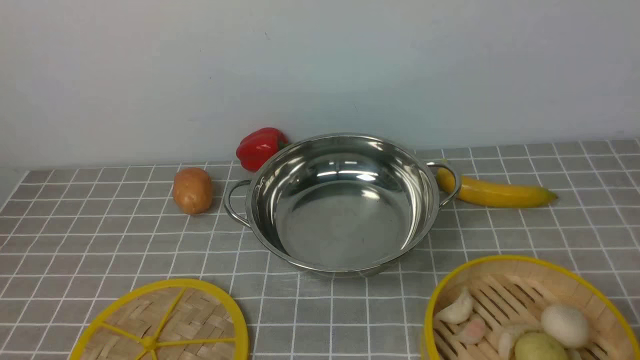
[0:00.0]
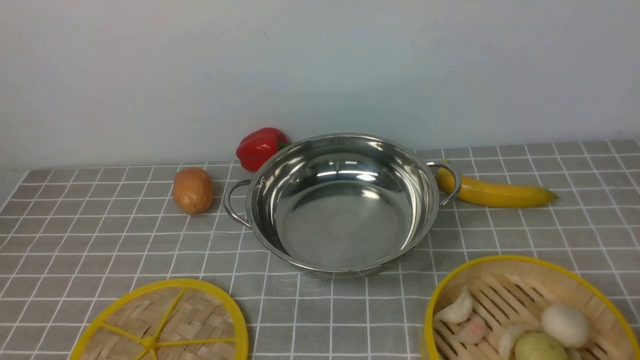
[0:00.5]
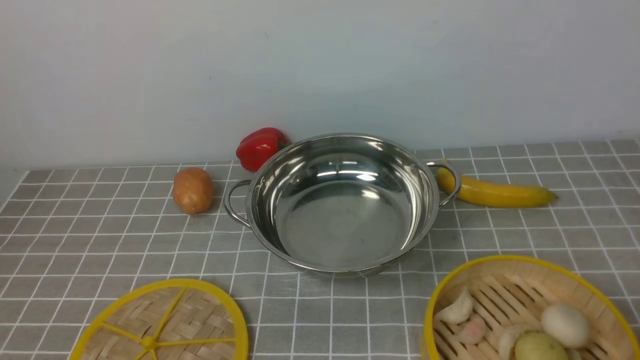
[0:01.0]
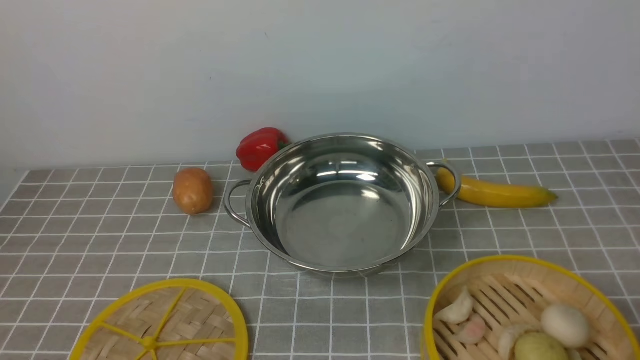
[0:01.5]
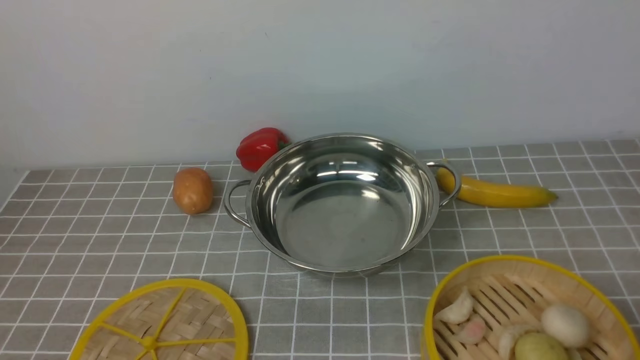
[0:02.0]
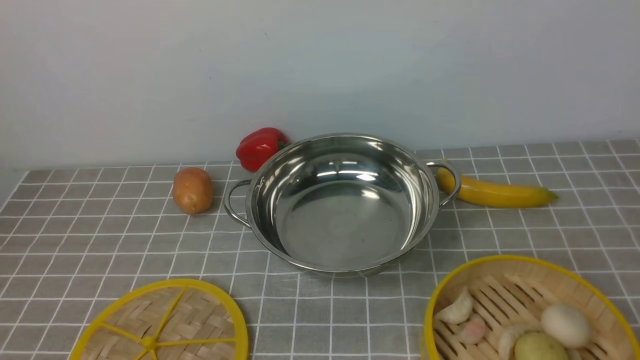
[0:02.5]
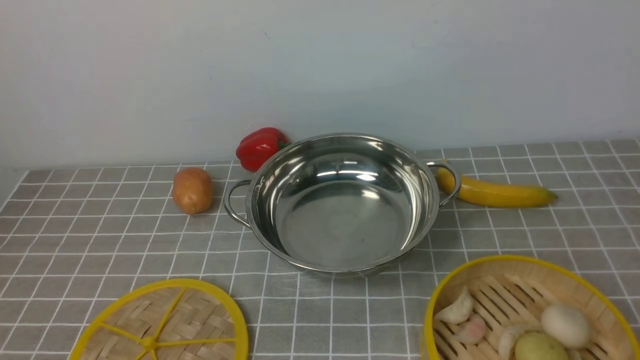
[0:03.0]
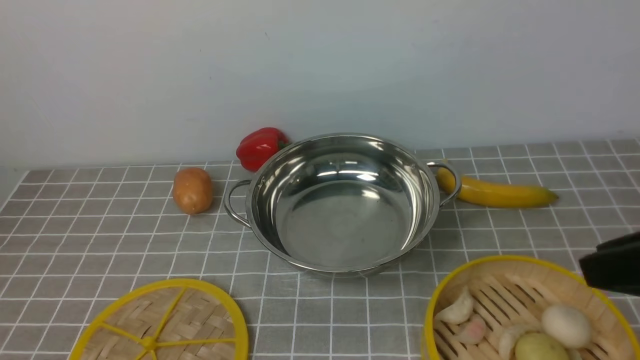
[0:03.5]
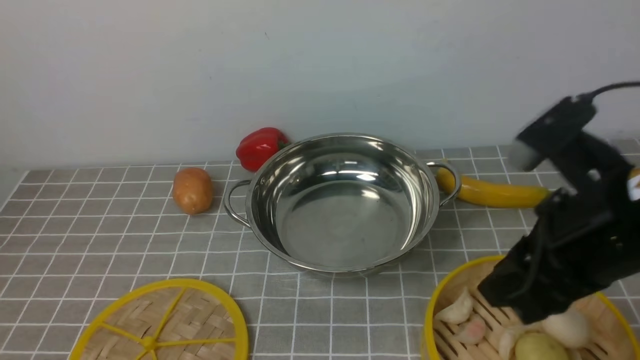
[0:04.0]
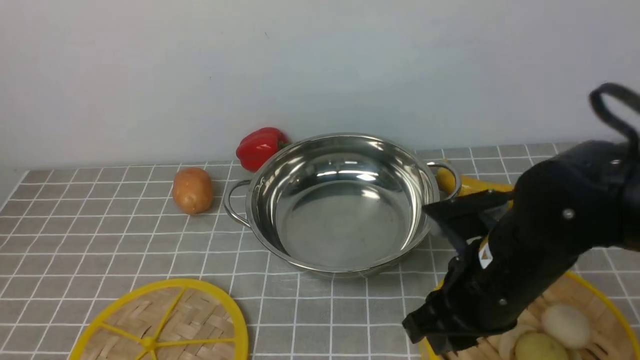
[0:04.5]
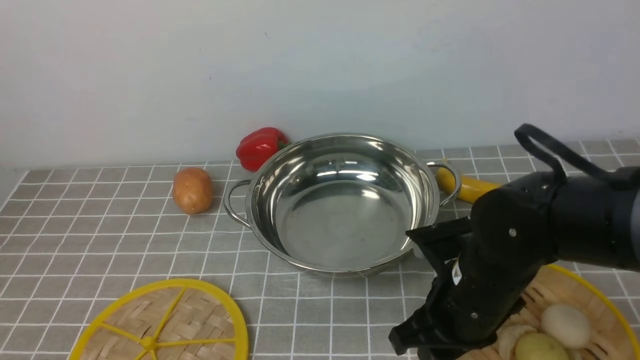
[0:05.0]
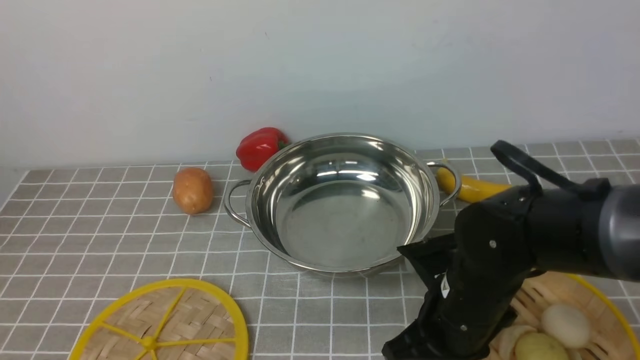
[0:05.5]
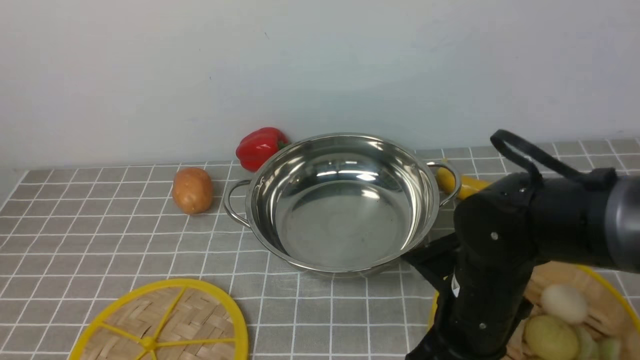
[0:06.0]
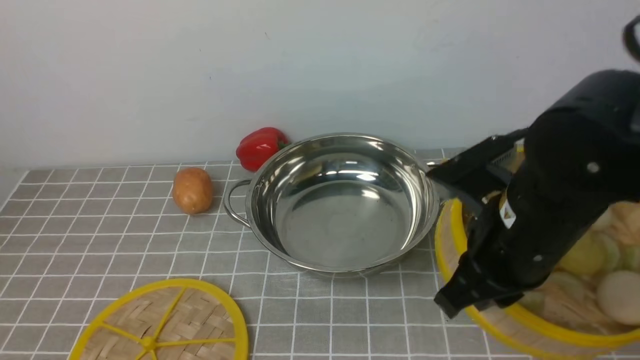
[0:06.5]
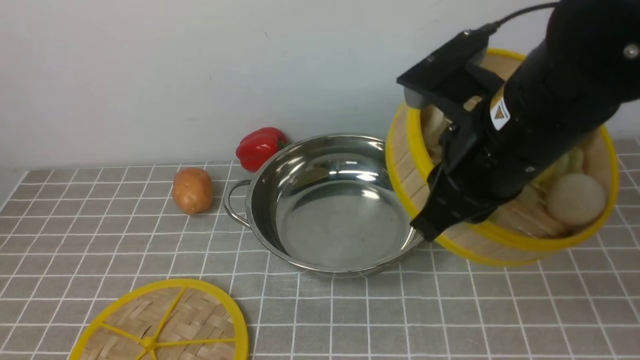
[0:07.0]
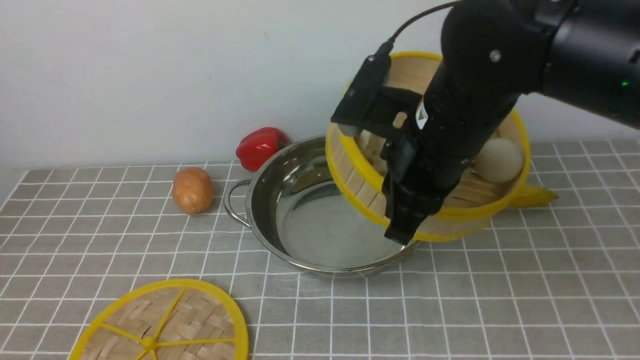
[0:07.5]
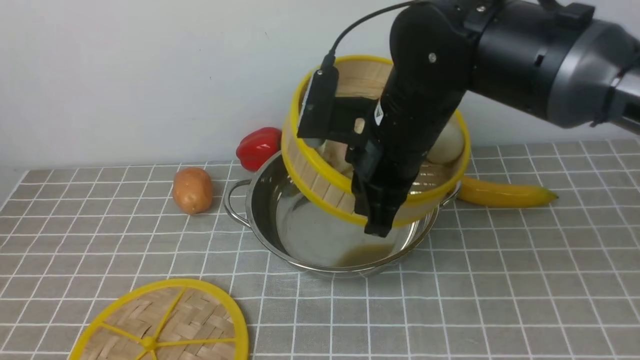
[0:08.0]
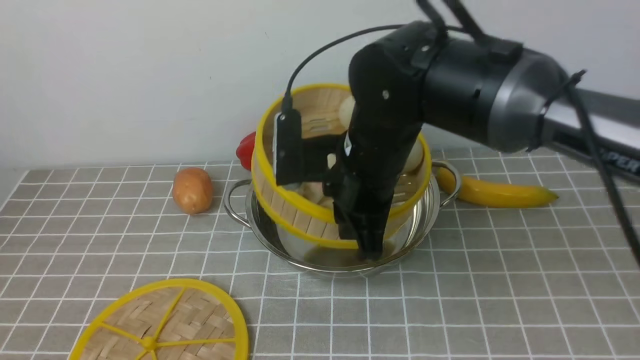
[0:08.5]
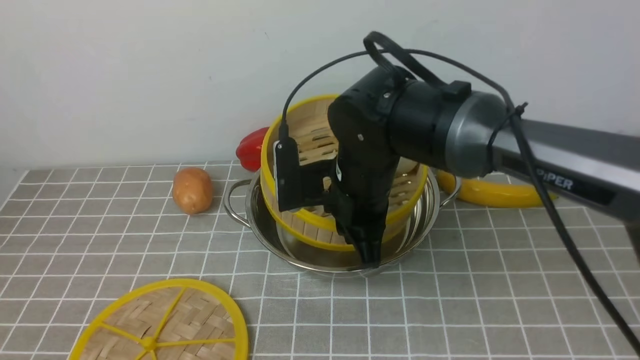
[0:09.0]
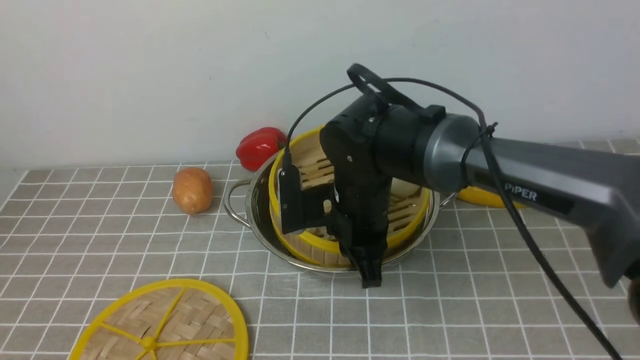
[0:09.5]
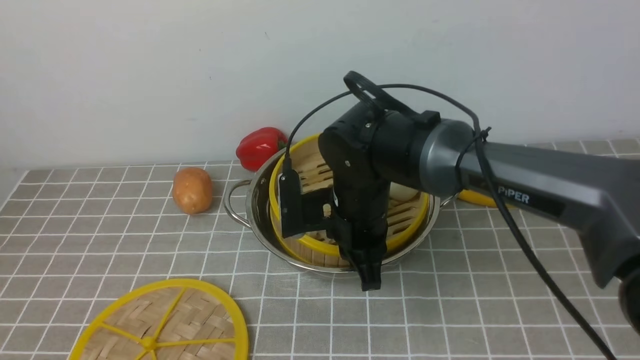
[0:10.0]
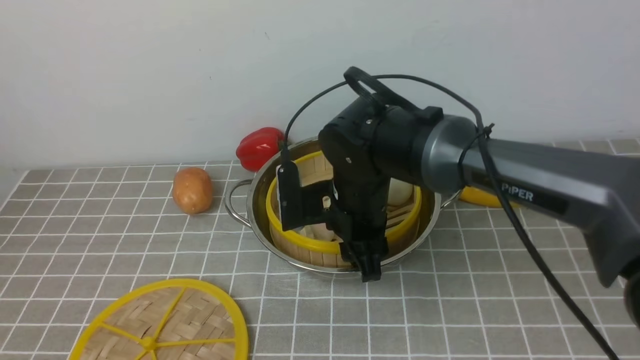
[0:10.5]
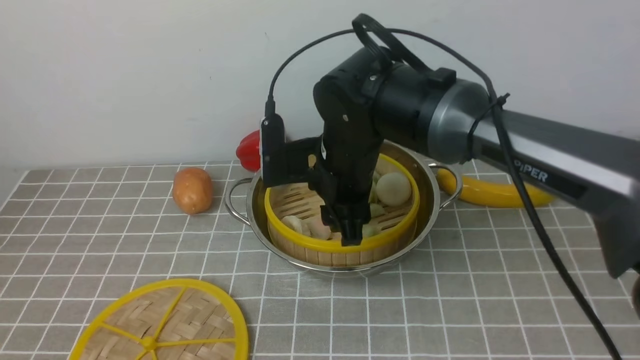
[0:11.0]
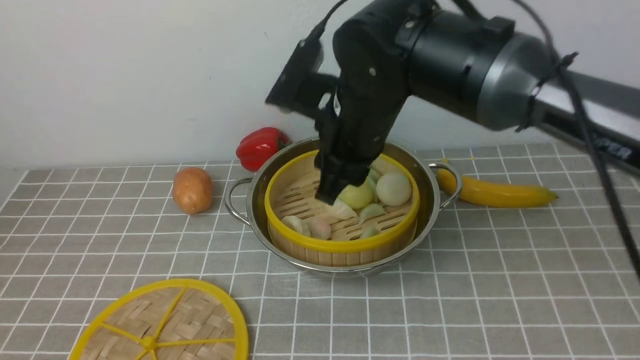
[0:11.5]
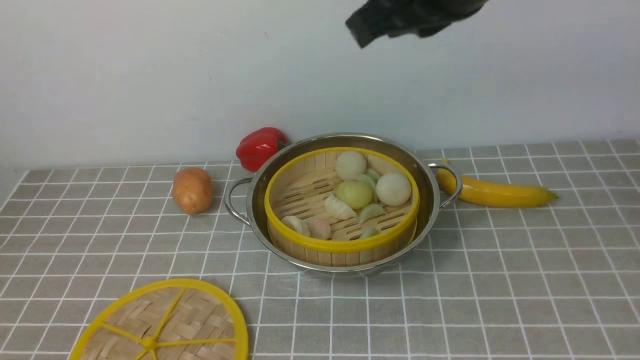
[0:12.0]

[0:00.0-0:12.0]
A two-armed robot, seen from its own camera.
Task of the whole recording: place the steamer in the pot on the grey tablecloth, and put the lid on the steamer.
Step, 0:00.0 to 0:06.0: use the right arm to lift the steamer closest to it.
Step, 0:06.5 to 0:10.5: use the right arm to put the steamer into the iron steamer pot in the middle.
0:02.0 to 0:04.0: The right gripper travels forward, upward and to the left by about 20 cm.
0:04.0 to 0:06.0: The right gripper goes about 15 cm downward and to the left, and closes.
0:06.0 to 0:08.0: The right gripper goes approximately 15 cm upward, forward and to the left.
0:08.0 to 0:10.0: The right gripper goes some 10 cm downward.
0:10.0 to 0:12.0: The right gripper travels upward by some 25 cm, and opens, then closes again.

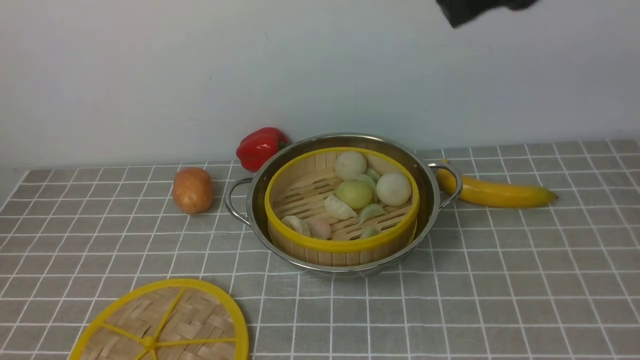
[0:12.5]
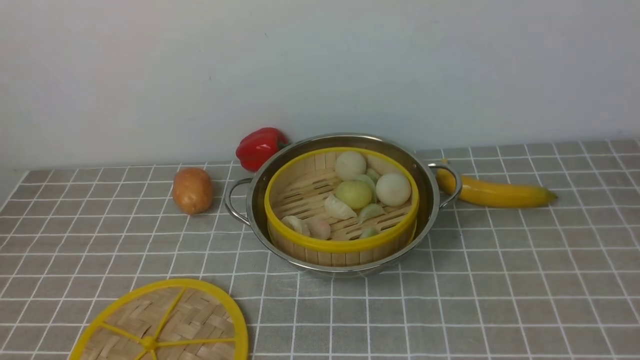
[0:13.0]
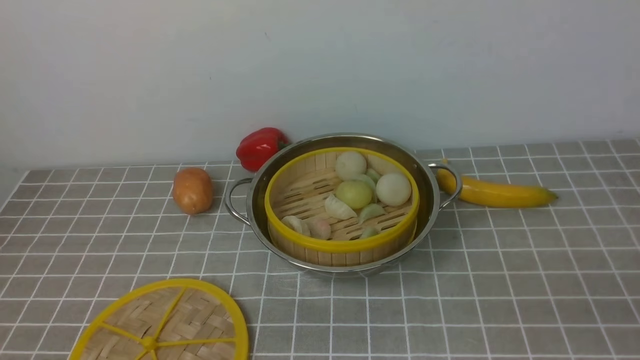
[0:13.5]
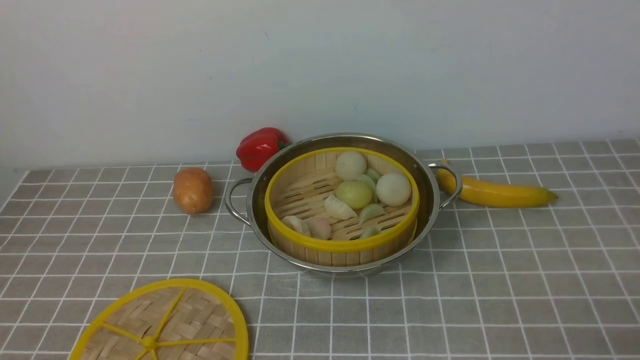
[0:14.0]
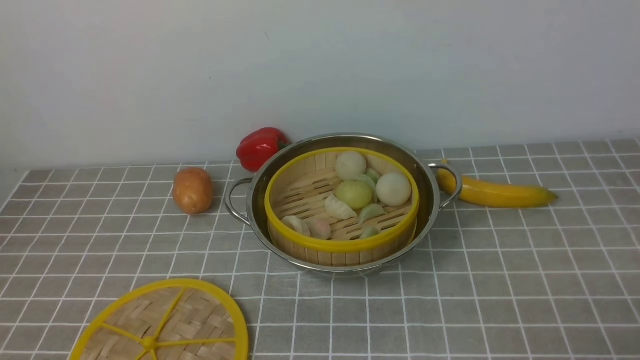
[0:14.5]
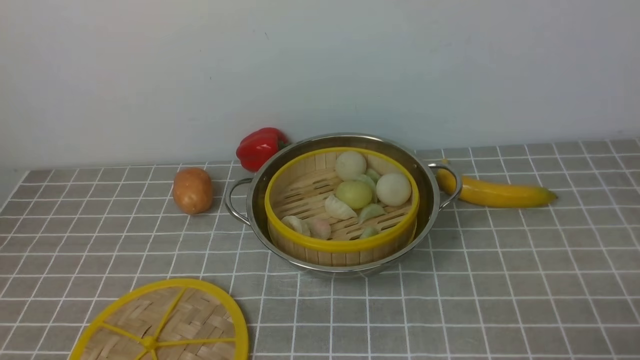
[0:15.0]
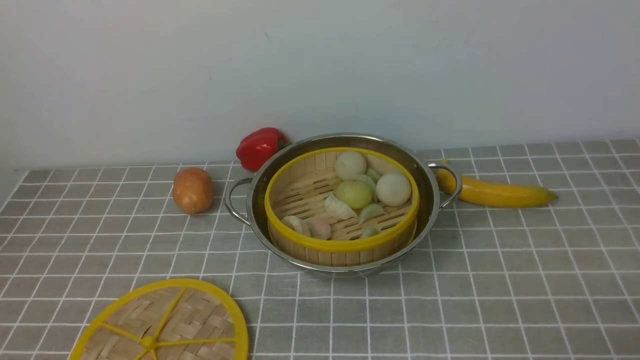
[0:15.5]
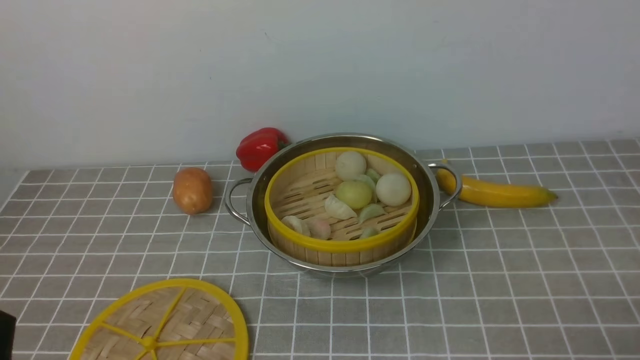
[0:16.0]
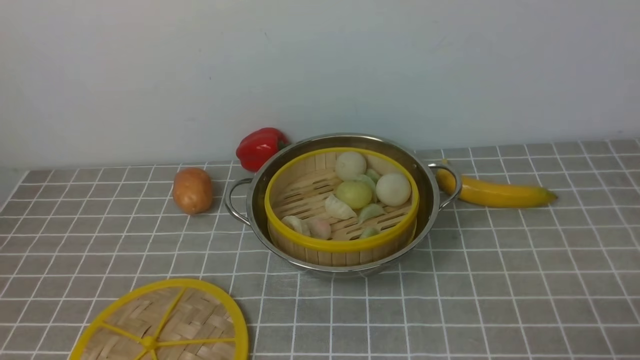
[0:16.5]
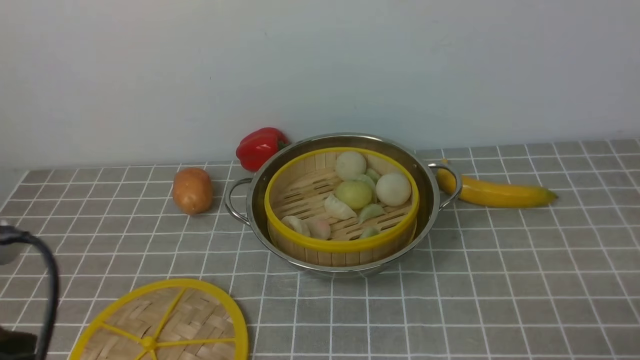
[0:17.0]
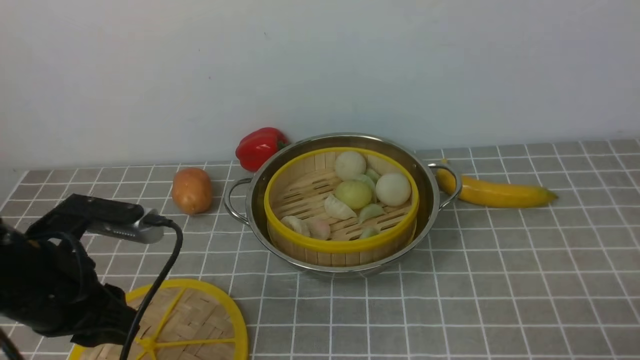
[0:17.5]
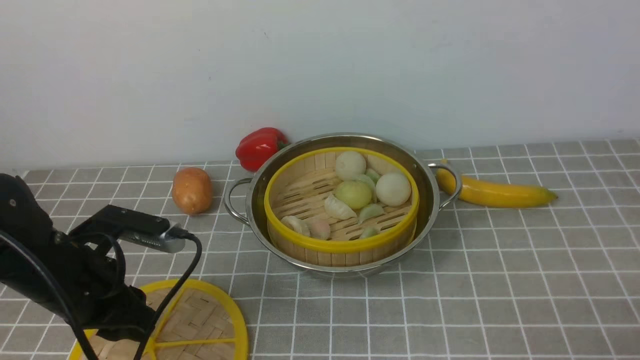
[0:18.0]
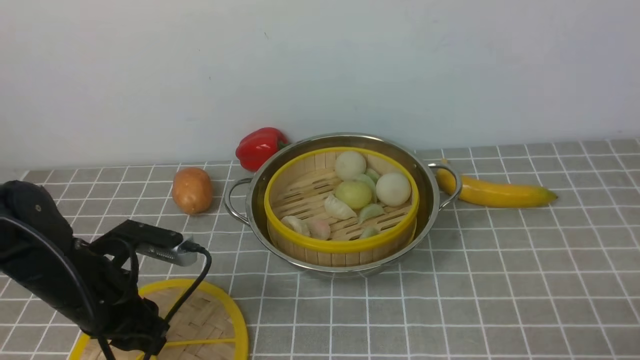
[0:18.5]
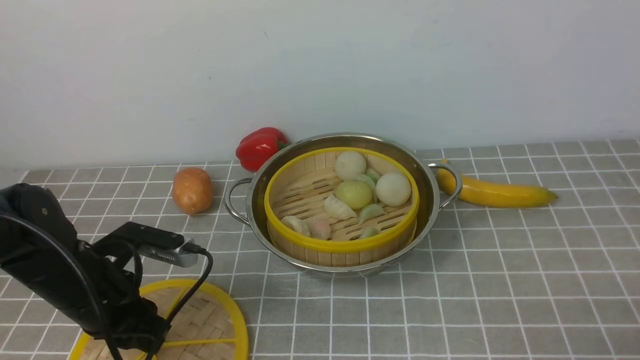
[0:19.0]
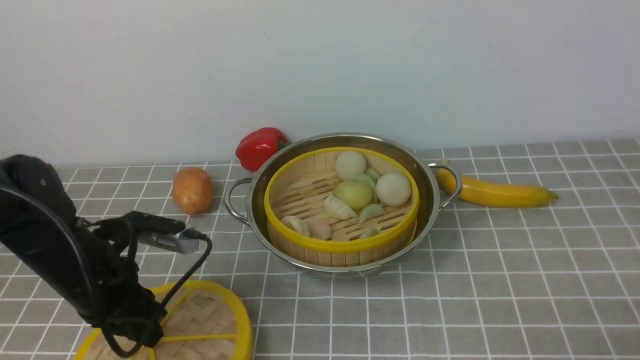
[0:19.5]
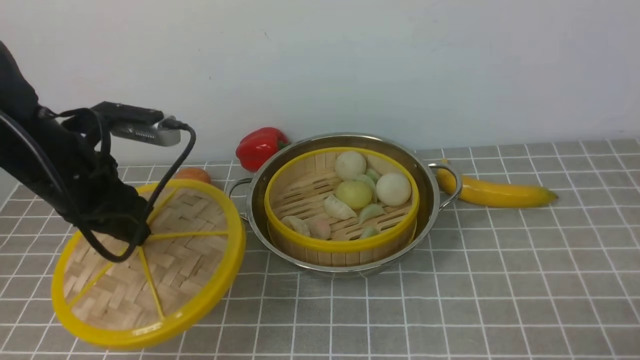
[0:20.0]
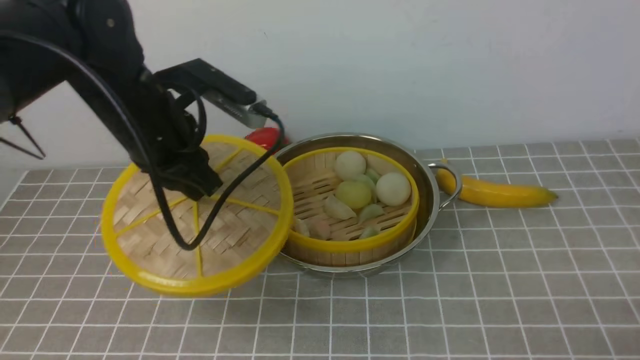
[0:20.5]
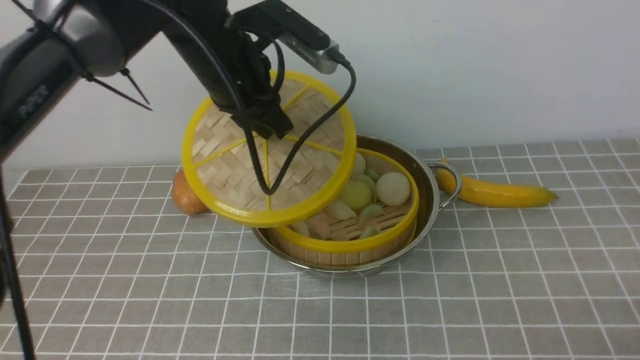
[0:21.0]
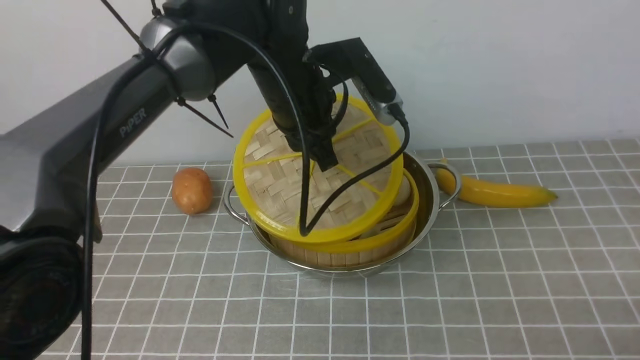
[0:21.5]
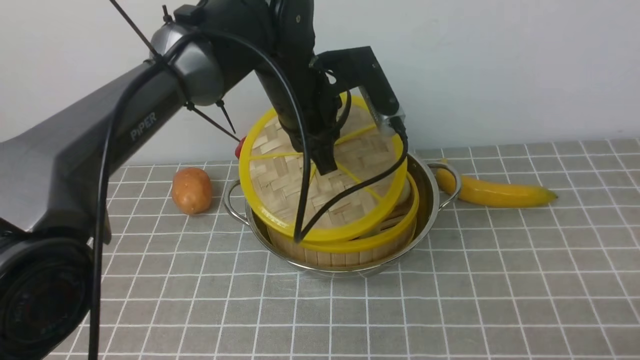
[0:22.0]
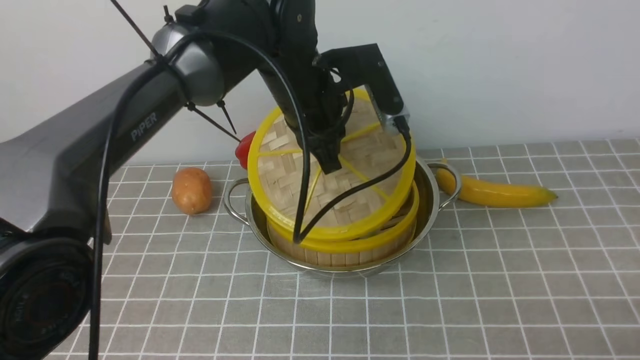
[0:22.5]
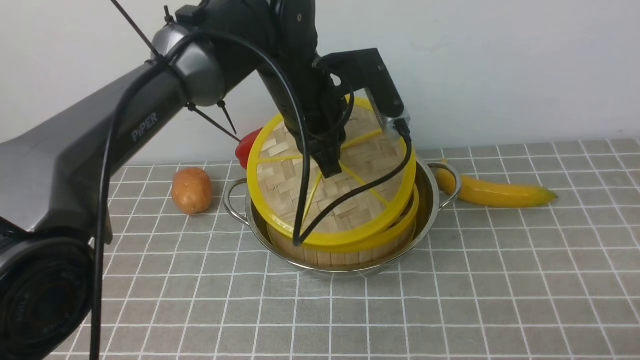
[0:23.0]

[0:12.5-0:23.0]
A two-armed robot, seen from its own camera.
Task of the whole recording: place the steamer in the pot on the grey tablecloth, and put the lid on the steamer.
Step, 0:12.5 to 0:19.5: use the left arm to lift the lid of the steamer.
0:12.5 to 0:14.5: The right gripper heads downward, backward and to the right, covering approximately 40 cm, and opens up.
0:16.5 to 0:19.0: The left gripper goes roughly 25 cm forward and downward.
0:19.0 to 0:21.0: The left gripper goes approximately 25 cm upward, to the right and forward.
0:21.0 to 0:23.0: The left gripper heads to the right, covering approximately 10 cm.
